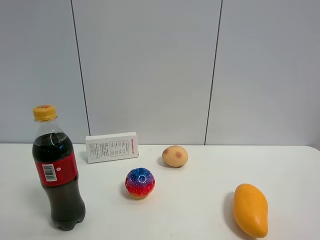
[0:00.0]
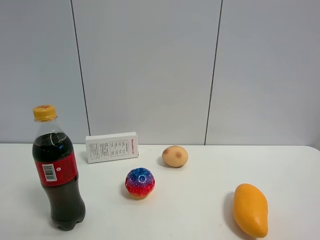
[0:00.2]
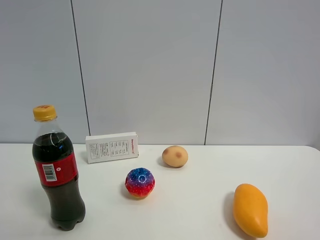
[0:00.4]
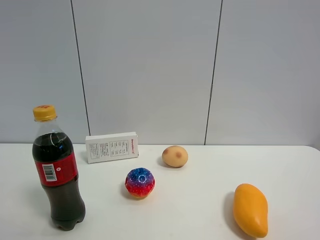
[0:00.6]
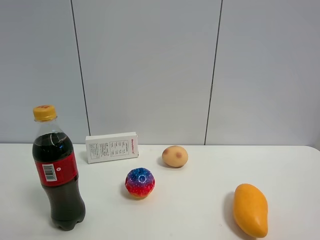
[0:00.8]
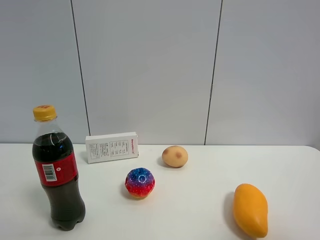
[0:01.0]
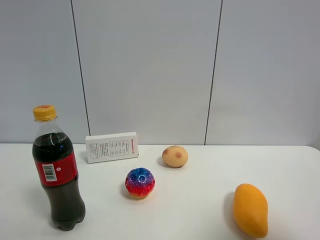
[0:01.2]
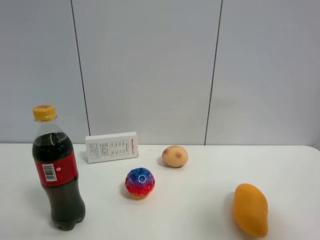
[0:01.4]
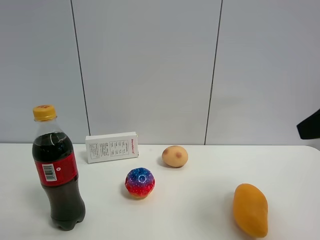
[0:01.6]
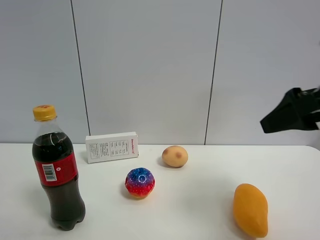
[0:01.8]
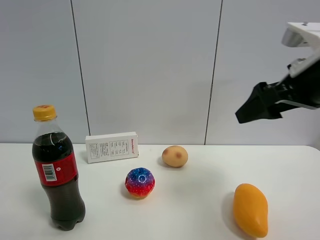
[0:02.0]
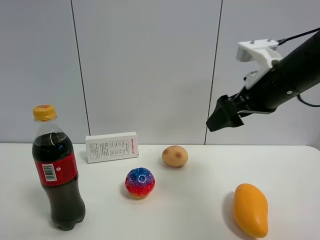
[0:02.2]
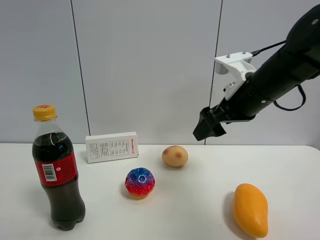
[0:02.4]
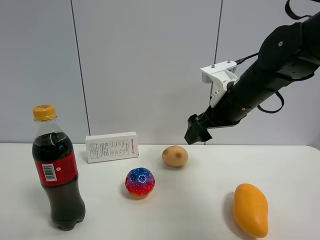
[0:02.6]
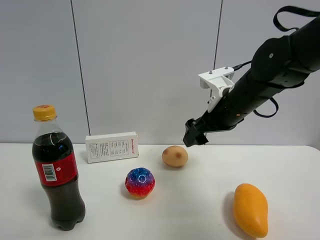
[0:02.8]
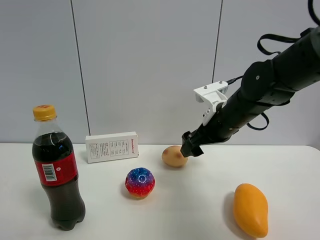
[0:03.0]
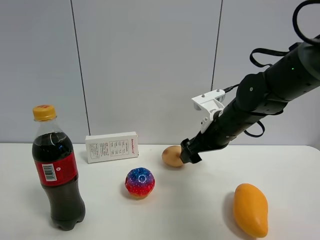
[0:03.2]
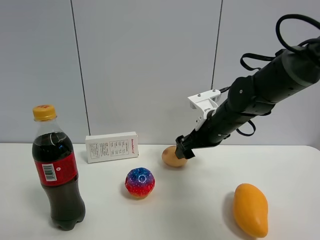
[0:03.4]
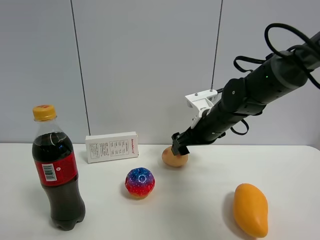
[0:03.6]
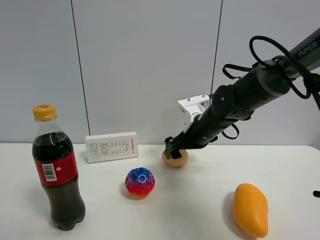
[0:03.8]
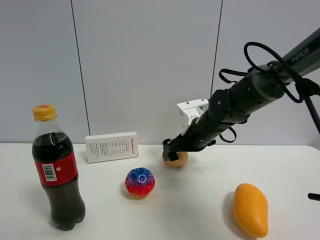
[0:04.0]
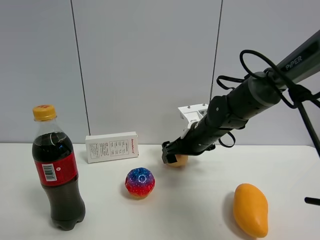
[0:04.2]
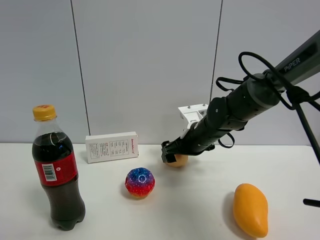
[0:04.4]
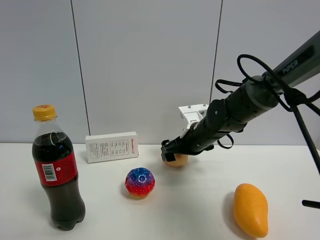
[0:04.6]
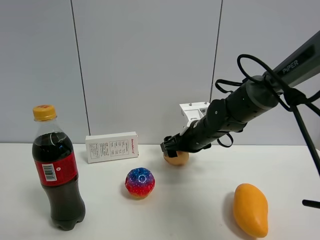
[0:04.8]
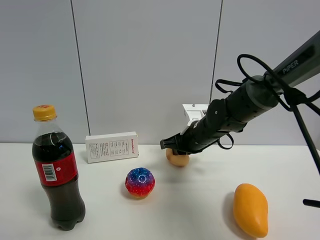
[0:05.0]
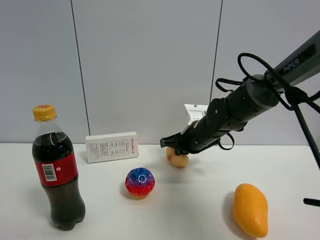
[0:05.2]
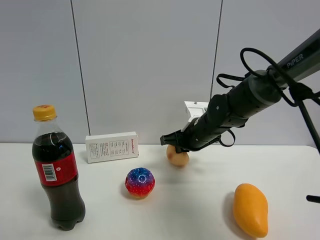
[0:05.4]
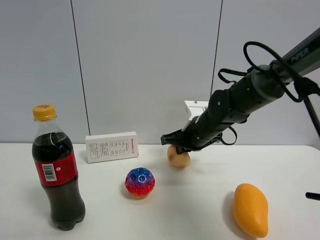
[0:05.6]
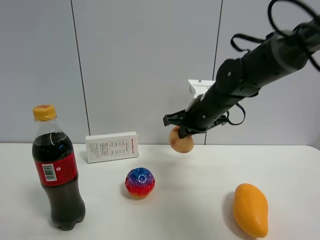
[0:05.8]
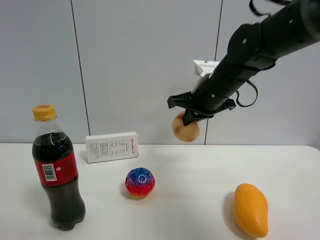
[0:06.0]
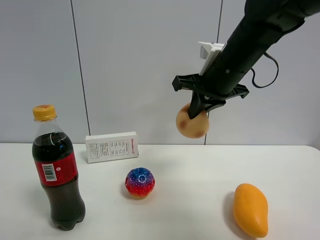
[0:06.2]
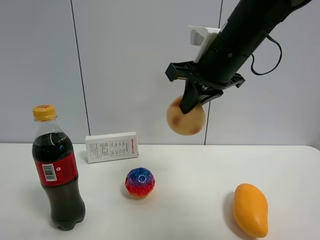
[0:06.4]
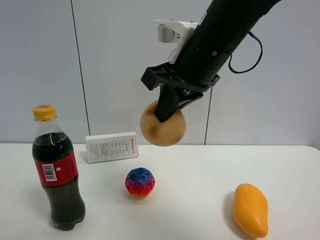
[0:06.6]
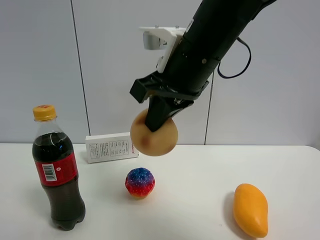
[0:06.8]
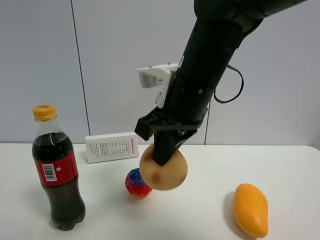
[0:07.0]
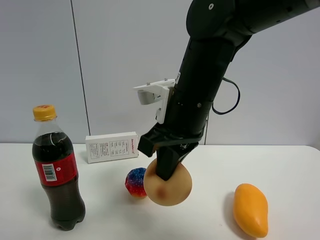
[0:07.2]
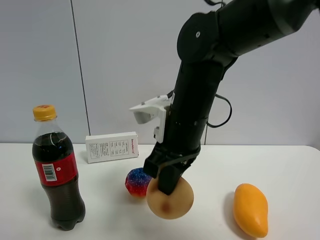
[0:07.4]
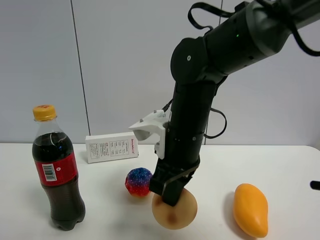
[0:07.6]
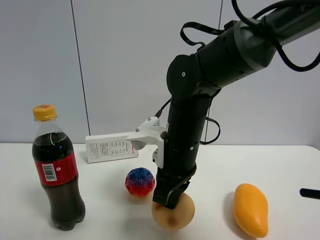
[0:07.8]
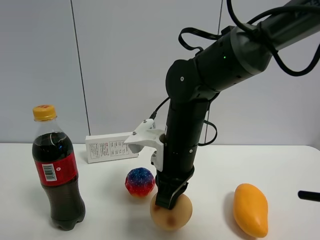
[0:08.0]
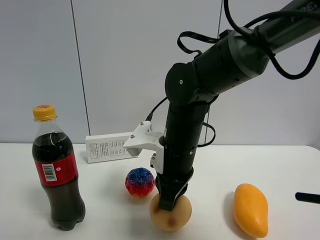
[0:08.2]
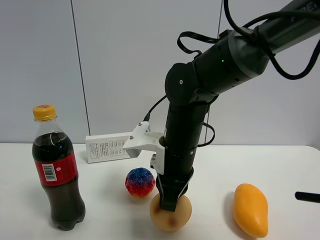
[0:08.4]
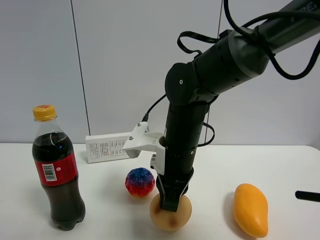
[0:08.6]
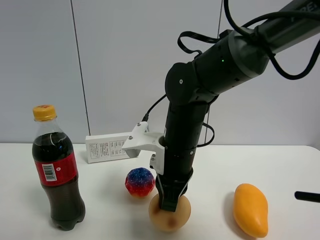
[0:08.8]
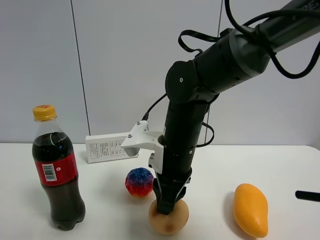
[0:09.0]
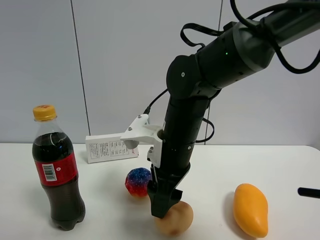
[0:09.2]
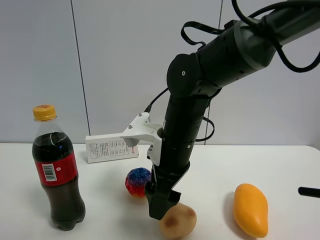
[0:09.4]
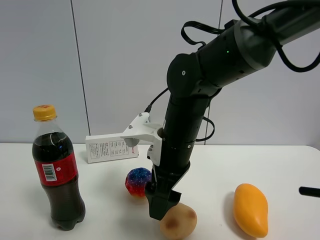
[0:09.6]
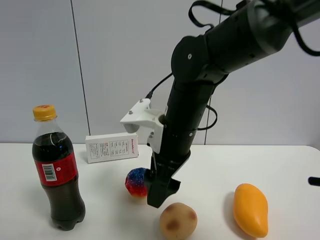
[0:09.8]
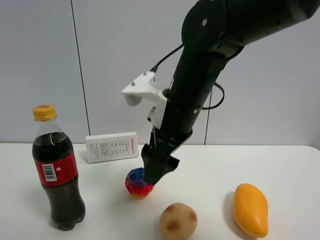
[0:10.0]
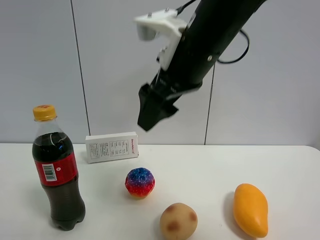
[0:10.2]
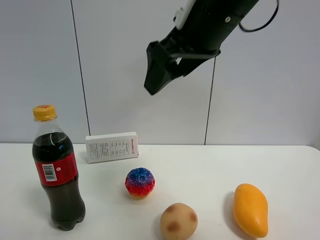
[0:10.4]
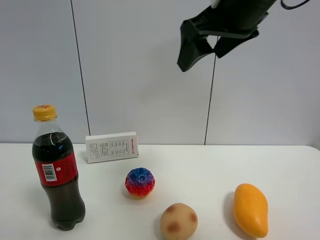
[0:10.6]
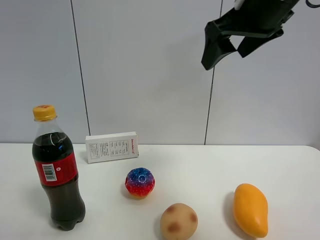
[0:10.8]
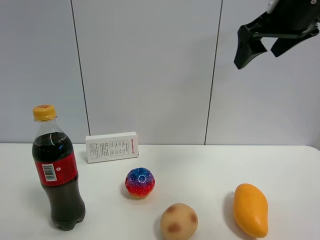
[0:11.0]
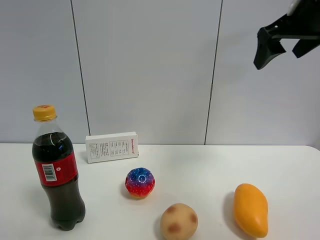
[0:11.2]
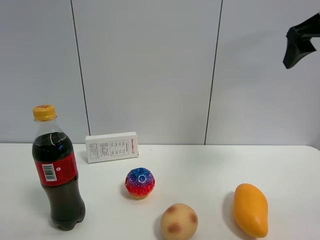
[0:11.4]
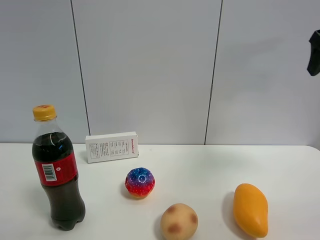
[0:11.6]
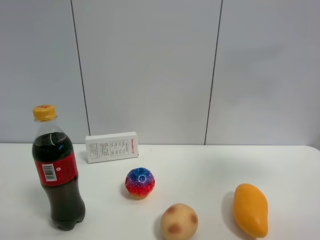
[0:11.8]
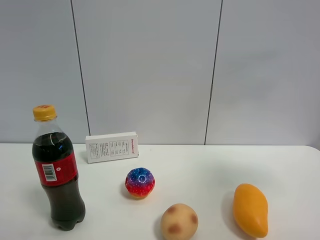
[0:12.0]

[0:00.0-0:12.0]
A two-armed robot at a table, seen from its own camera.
Task of the whole recording: the gripper move the object.
Step, 0:00.0 to 0:05.0: Grasp the egg yolk pastry with the right gripper.
Step, 0:05.2 to 0:09.2: Place the egg yolk pastry on the table with the right gripper.
0:00.0 to 0:01.6: The right gripper shifts about 15 cm forward.
0:01.6 to 0:03.0: The right gripper moves forward, to the left and downward, some 25 cm.
0:03.0 to 0:04.4: The right gripper travels downward and forward by approximately 10 cm.
0:04.4 to 0:06.0: The right gripper heads upward, covering roughly 15 cm, and closes up.
0:06.0 to 0:07.6: The right gripper is displaced backward, to the left and downward by roughly 15 cm.
0:07.6 to 0:09.0: The right gripper opens up.
0:09.0 to 0:10.4: The right gripper goes some 20 cm upward, and opens its fingers.
0:10.4 to 0:12.0: The right gripper travels to the right by about 25 cm.

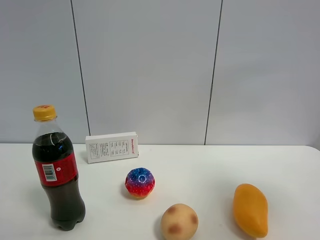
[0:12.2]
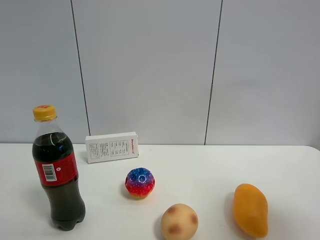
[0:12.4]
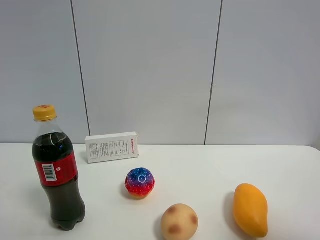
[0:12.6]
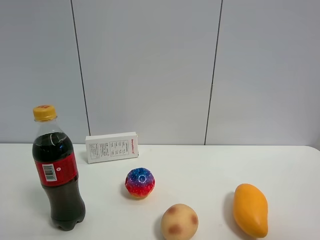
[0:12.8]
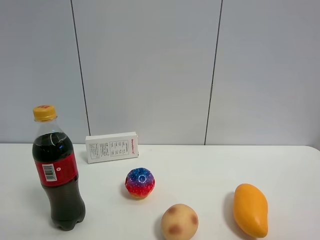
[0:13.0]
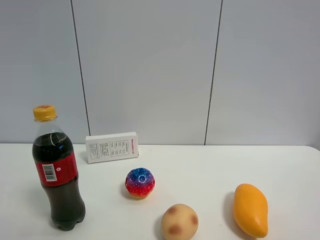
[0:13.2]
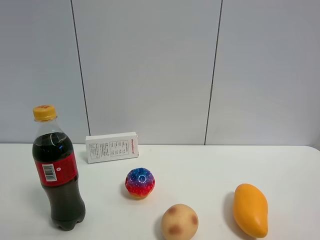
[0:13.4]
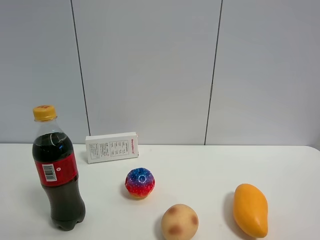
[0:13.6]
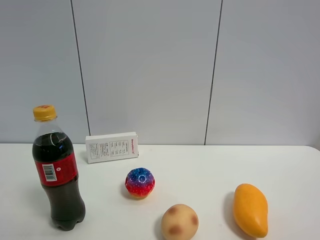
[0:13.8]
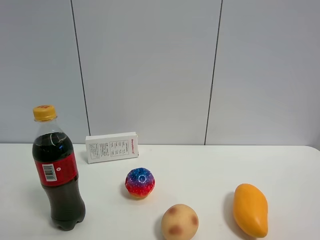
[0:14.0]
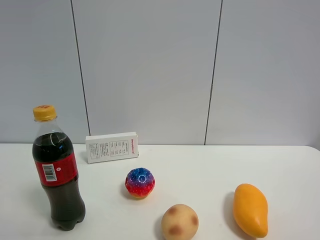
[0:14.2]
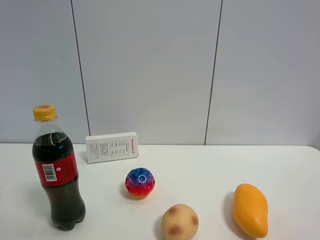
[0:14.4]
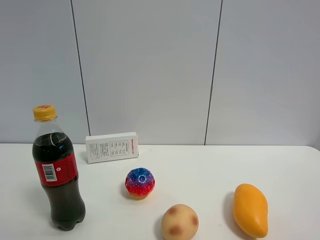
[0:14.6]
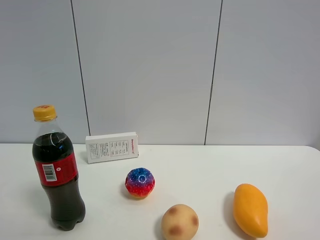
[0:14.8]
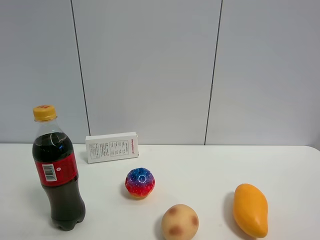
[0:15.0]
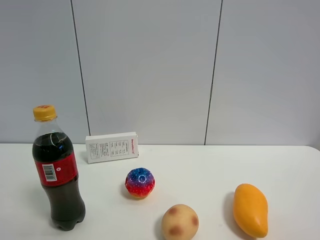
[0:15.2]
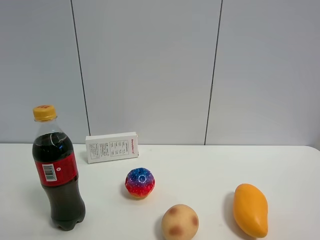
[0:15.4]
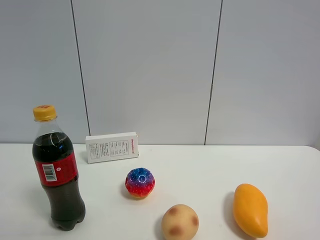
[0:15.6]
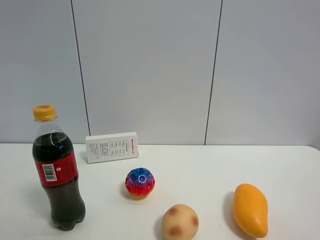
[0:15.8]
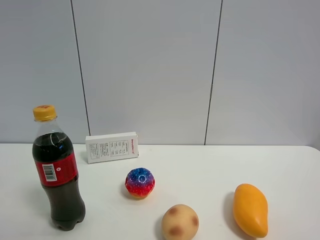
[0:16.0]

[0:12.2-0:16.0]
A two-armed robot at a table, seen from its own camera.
Task of the whole recording: the gripper move the object.
0:12.2 to 0:13.4: The right gripper is displaced backward and downward by about 20 cm.
0:14.8 to 0:16.0: Both grippers stay about where they are.

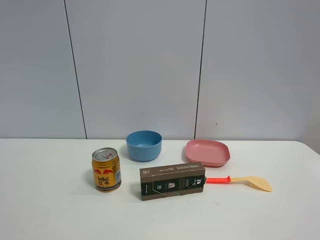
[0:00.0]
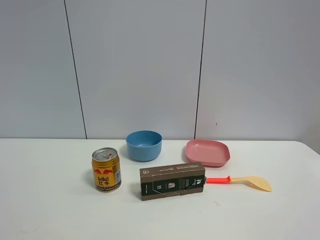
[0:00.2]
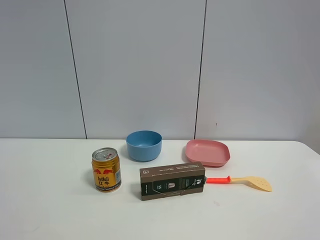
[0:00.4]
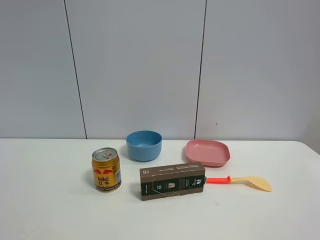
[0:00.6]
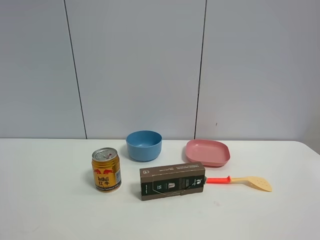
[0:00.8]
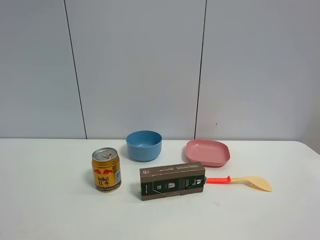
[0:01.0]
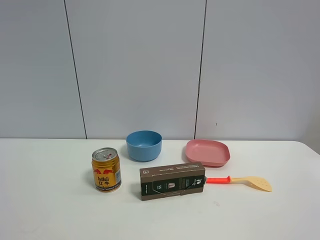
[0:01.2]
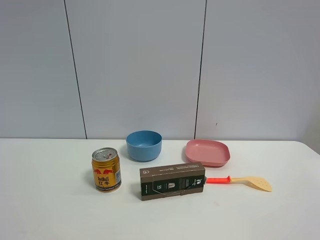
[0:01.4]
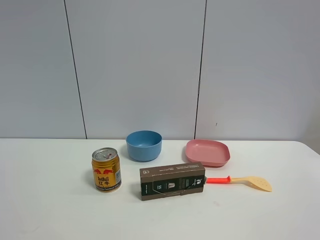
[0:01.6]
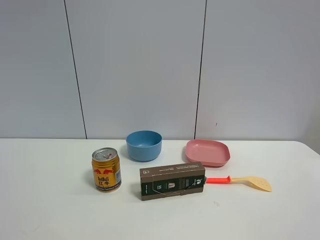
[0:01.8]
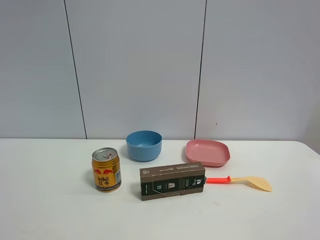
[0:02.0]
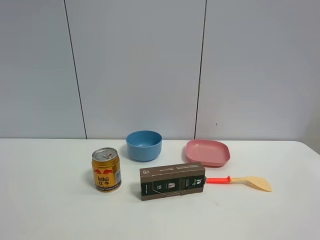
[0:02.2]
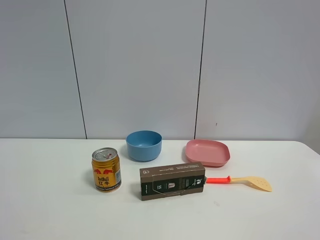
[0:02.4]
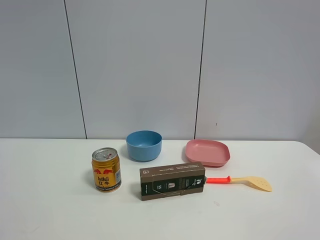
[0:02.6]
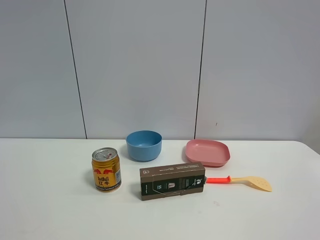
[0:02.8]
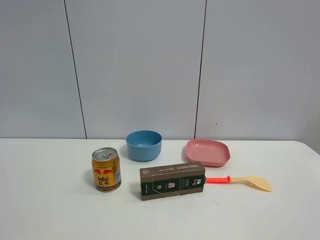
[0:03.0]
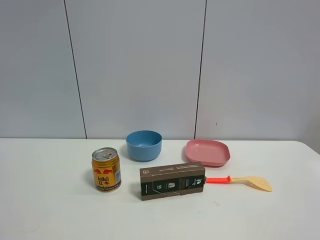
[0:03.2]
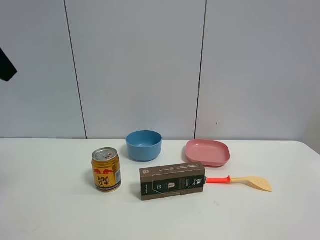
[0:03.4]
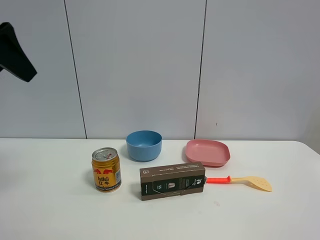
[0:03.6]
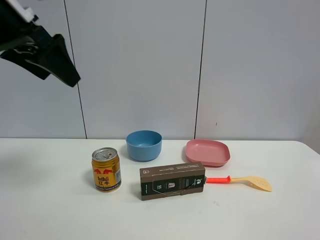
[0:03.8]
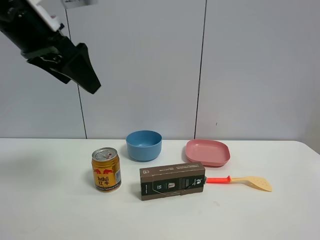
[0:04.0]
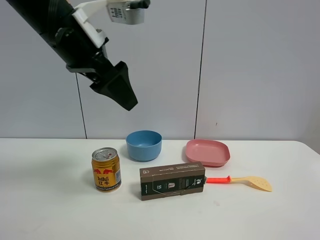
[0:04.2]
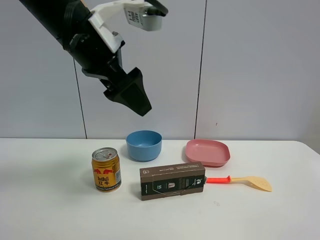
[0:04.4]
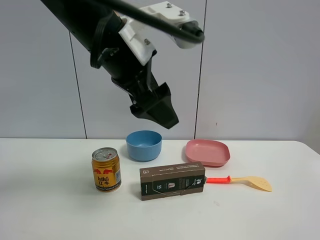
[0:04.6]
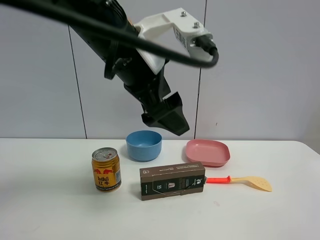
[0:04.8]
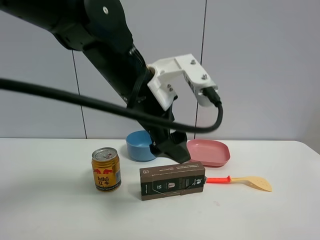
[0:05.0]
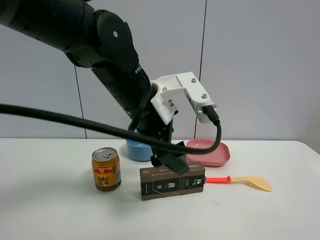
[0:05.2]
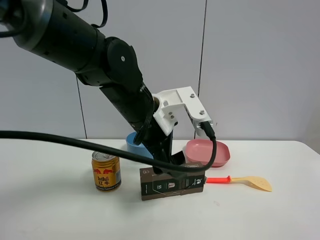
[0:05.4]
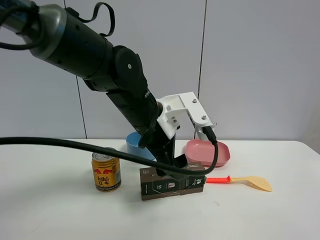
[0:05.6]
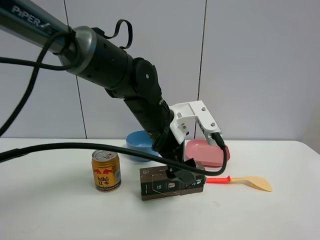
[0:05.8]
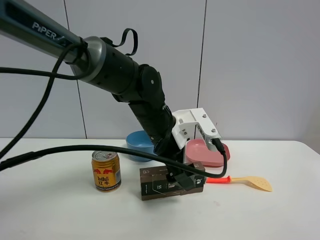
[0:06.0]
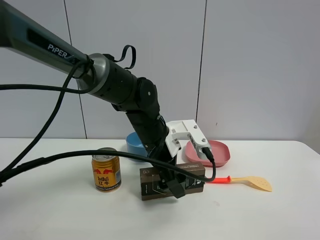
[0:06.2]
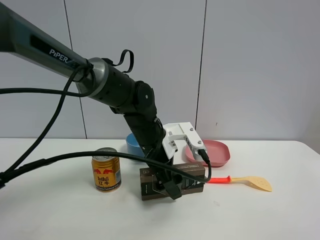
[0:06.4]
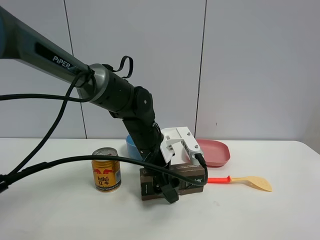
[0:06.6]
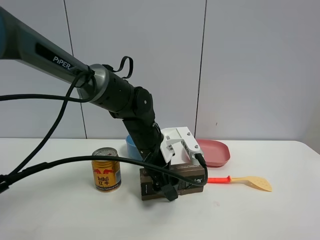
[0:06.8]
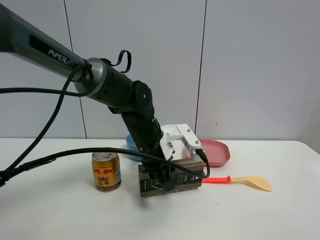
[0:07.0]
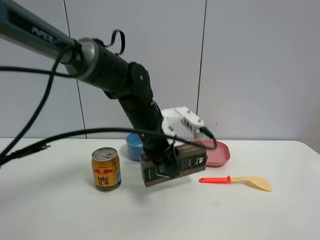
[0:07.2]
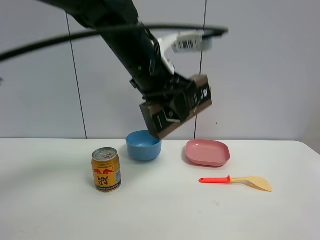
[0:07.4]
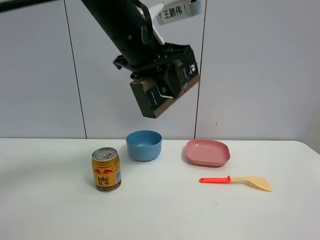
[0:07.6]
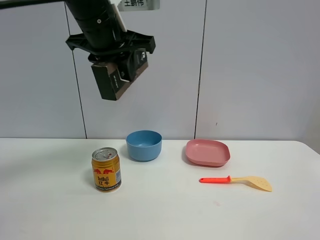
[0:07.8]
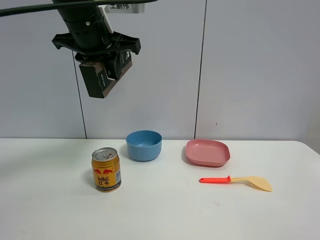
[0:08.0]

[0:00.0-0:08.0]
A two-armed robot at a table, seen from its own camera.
Task of the whole recording: the gripper move the object.
Step, 0:00.0 to 0:06.8: Grasp the Luckin Coffee box with the left gripper.
0:00.0 to 0:01.6: Both grippers stay about where they are.
0:03.2 to 0:04.8: The left gripper goes roughly 25 cm to the right.
0:04.8 to 0:06.4: The left gripper travels downward and forward by some 20 cm.
0:06.4 to 0:08.0: The left gripper moves upward and to the left, about 25 cm, and closes its fingers.
